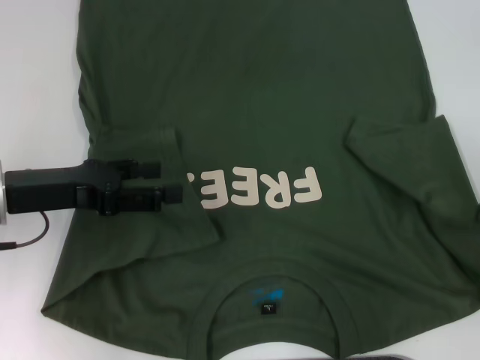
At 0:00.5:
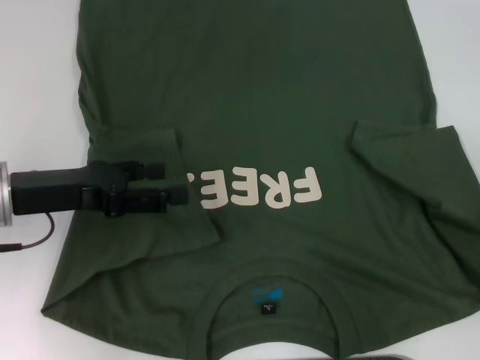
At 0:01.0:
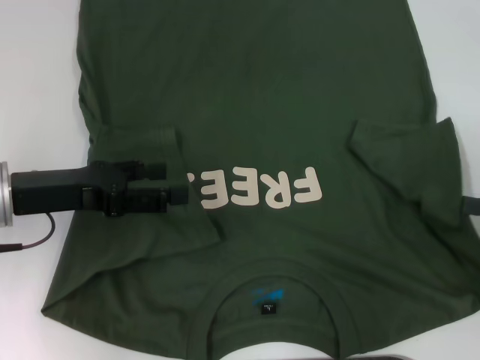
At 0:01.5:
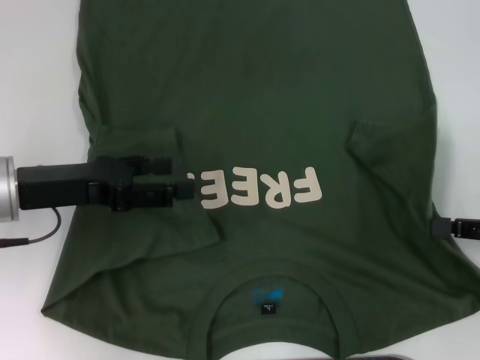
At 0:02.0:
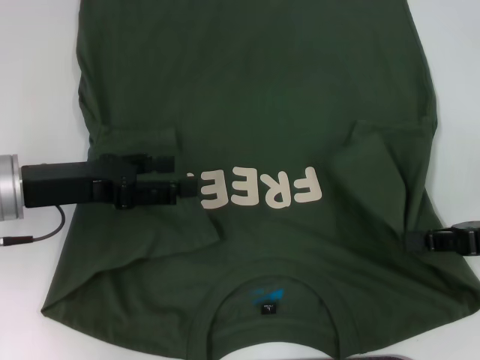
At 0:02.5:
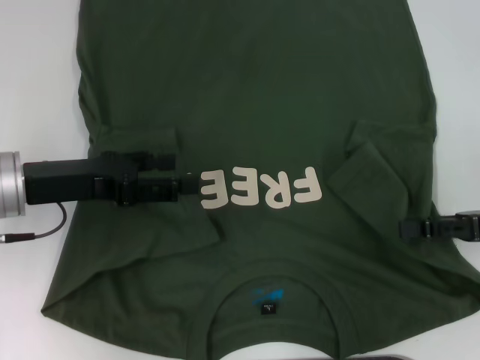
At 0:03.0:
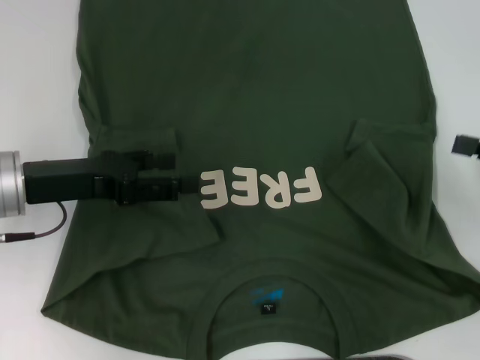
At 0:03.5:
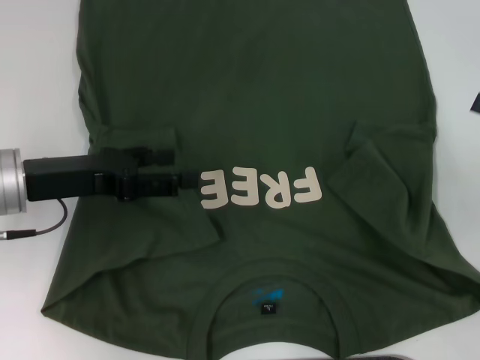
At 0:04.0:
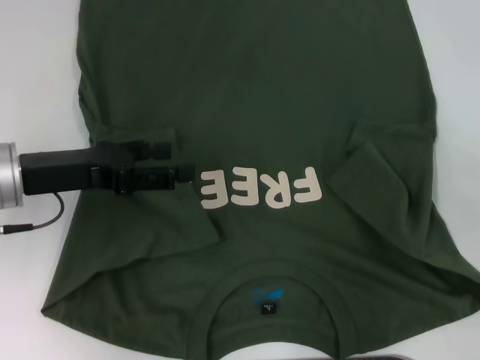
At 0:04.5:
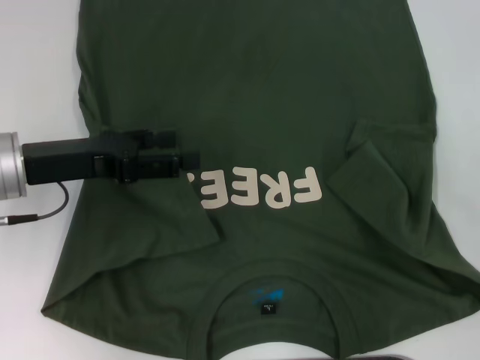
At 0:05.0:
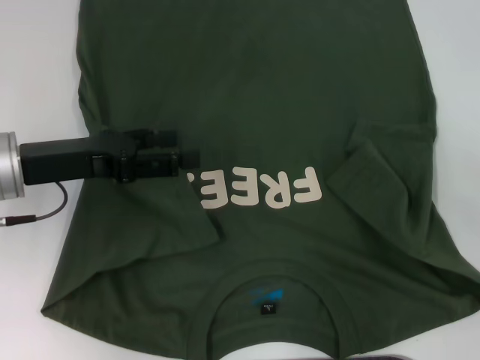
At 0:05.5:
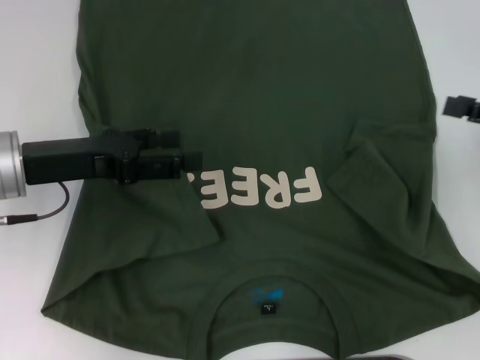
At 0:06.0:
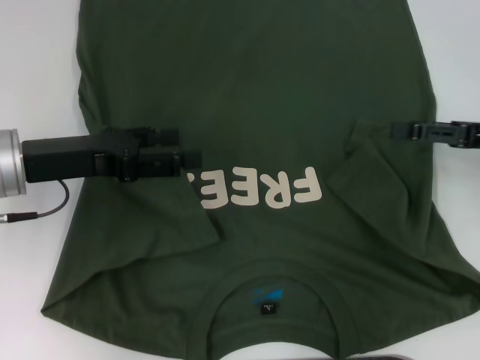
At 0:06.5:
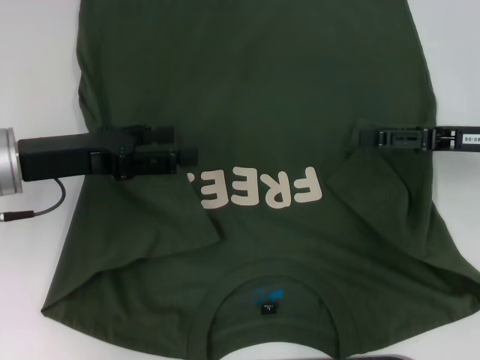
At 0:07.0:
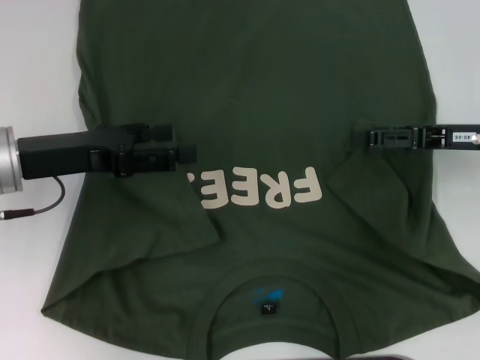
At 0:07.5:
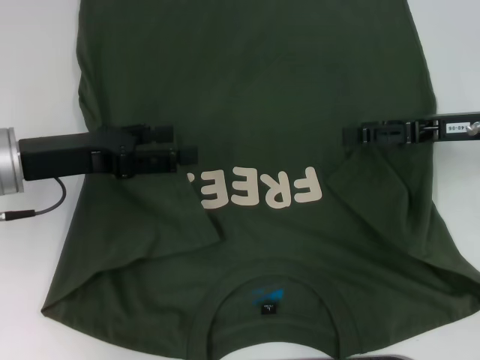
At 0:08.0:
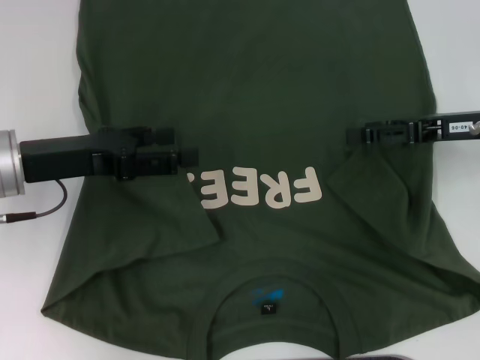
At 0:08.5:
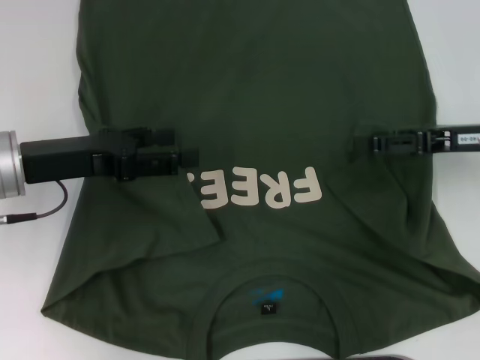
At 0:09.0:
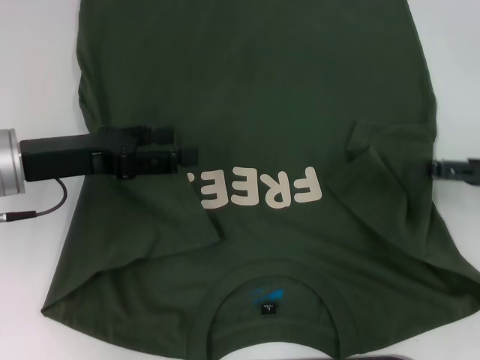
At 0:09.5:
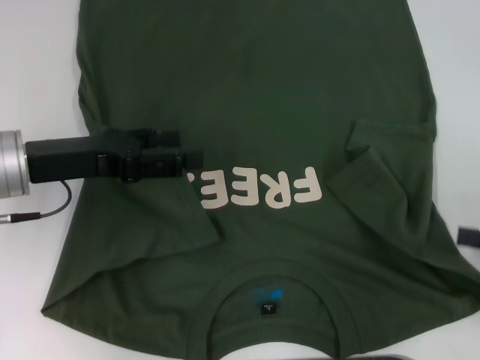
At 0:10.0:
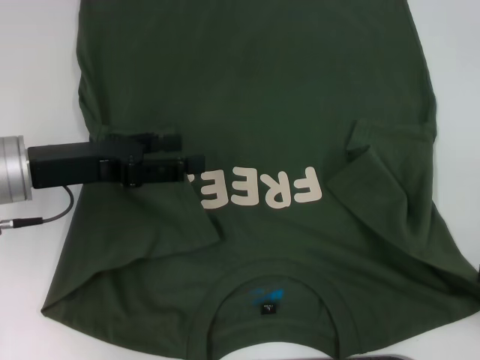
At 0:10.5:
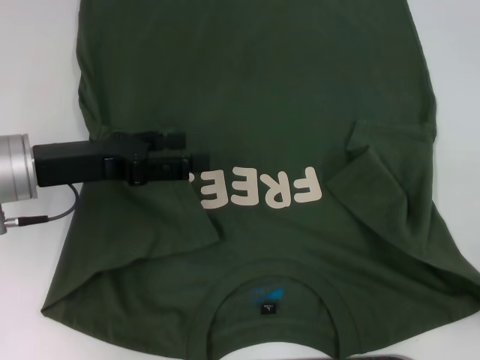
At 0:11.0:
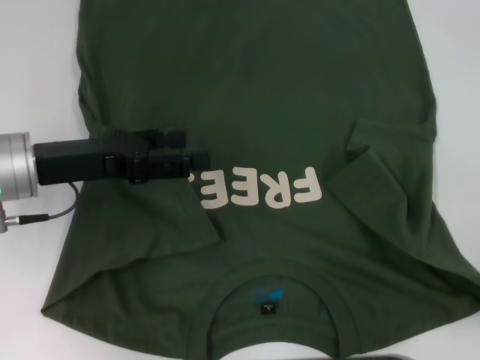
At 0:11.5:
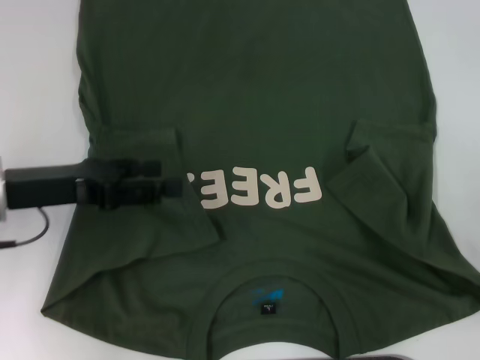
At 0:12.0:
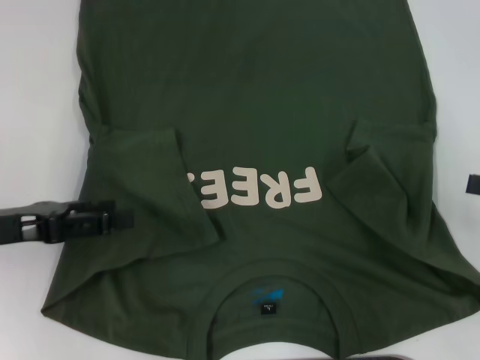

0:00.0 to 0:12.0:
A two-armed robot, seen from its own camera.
Step, 0:00.0 to 0:02.5: Fold the bottom right sleeve with your right hand.
0:00.0 to 0:02.0: The right gripper shifts approximately 5 cm to the left.
0:02.0 to 0:04.0: The right gripper moves roughly 5 cm, and opens its fingers.
0:04.0 to 0:06.0: The right gripper moves forward, approximately 5 cm.
0:06.0 to 0:08.0: The right gripper moves roughly 5 cm.
0:08.0 to 0:10.0: The right gripper shifts some 20 cm backward and to the right.
0:10.0 to 0:12.0: The left gripper travels to the left by some 5 cm, while the right gripper moves forward, roughly 5 cm.

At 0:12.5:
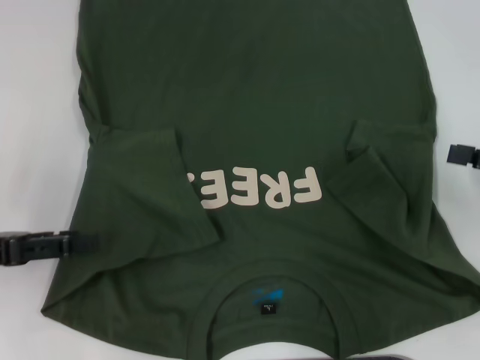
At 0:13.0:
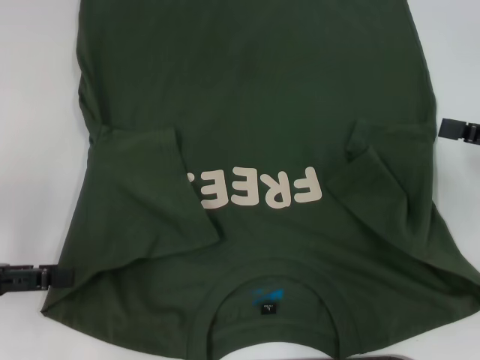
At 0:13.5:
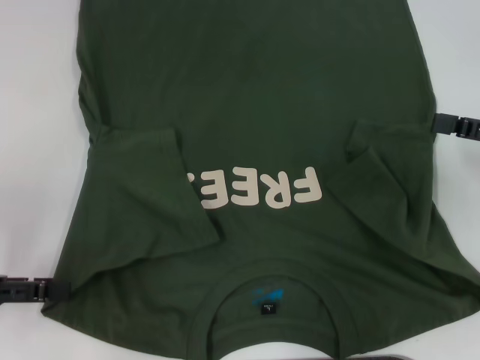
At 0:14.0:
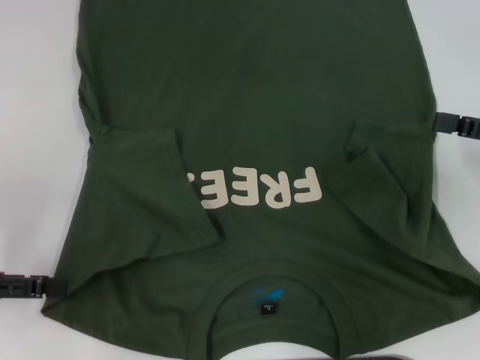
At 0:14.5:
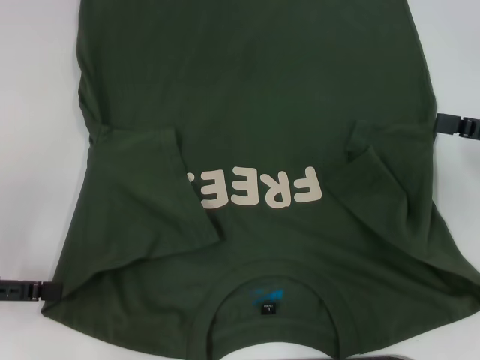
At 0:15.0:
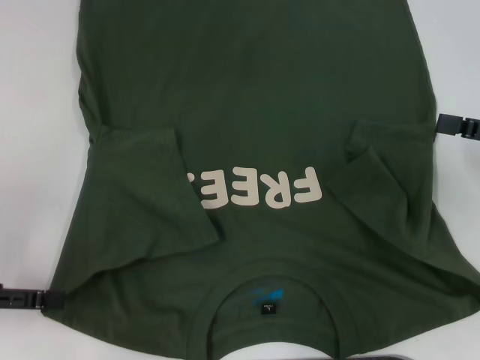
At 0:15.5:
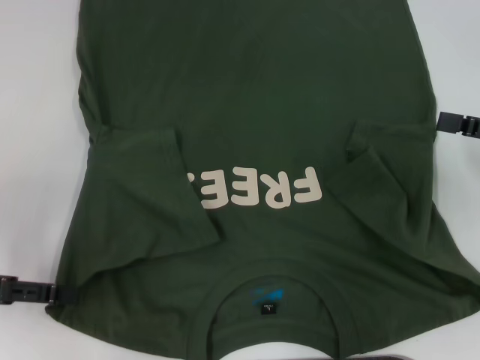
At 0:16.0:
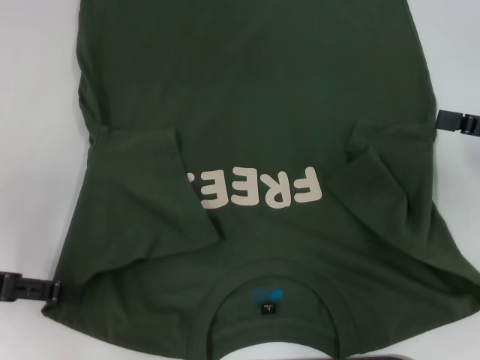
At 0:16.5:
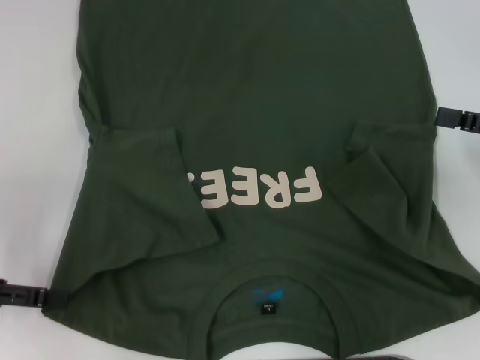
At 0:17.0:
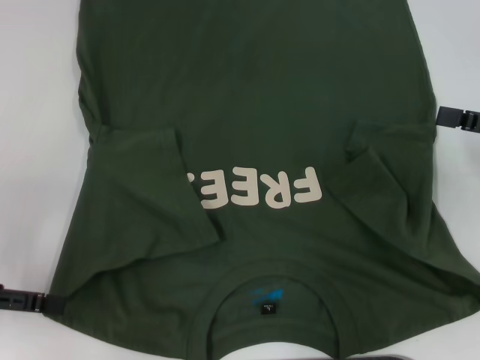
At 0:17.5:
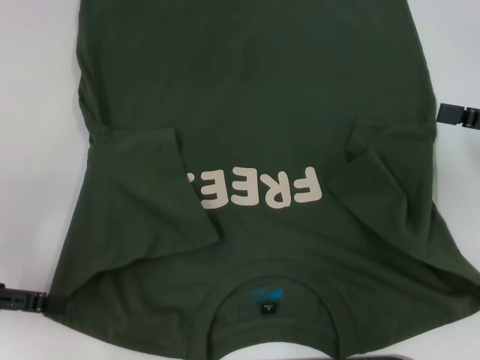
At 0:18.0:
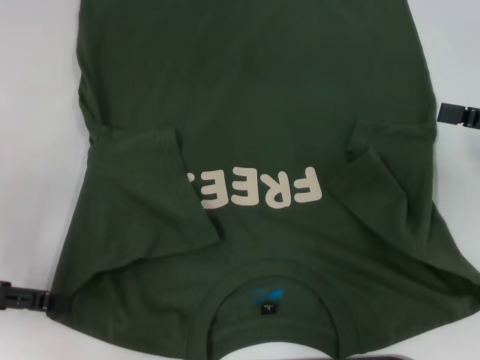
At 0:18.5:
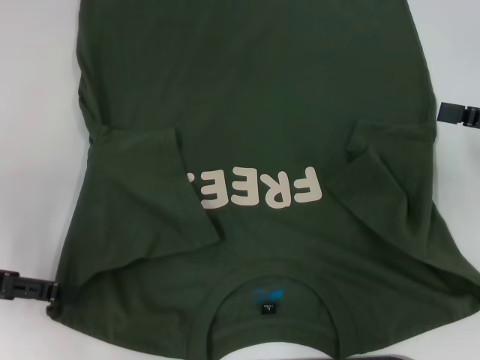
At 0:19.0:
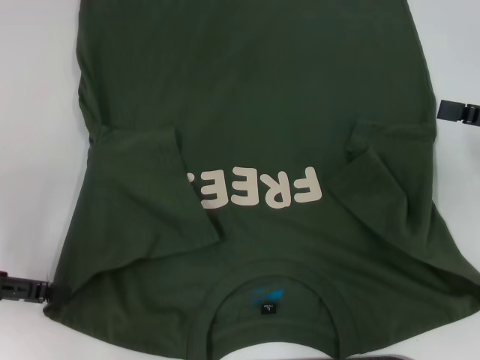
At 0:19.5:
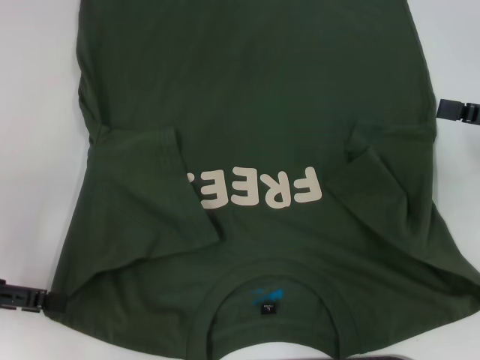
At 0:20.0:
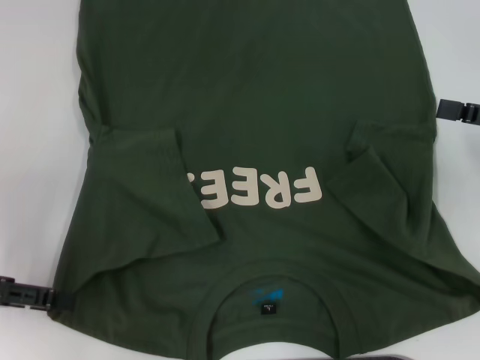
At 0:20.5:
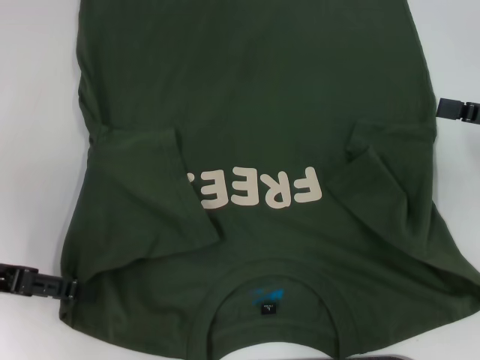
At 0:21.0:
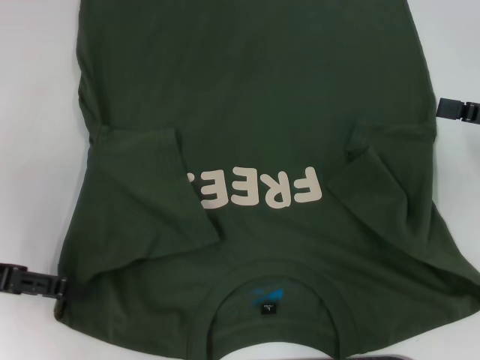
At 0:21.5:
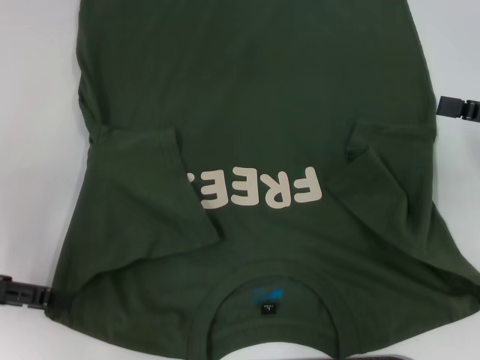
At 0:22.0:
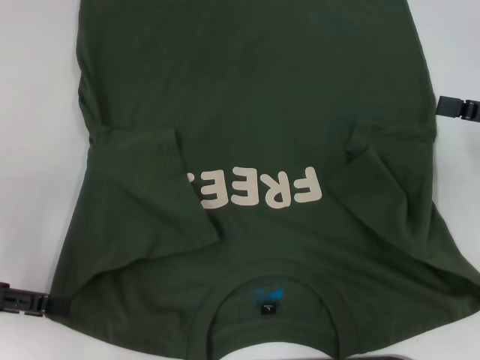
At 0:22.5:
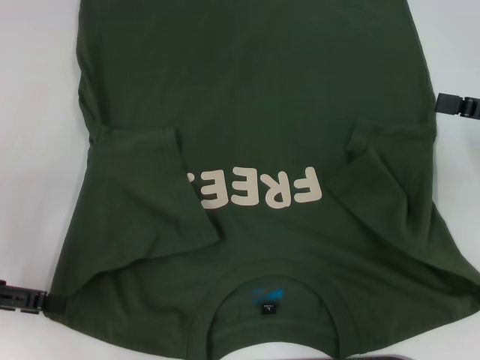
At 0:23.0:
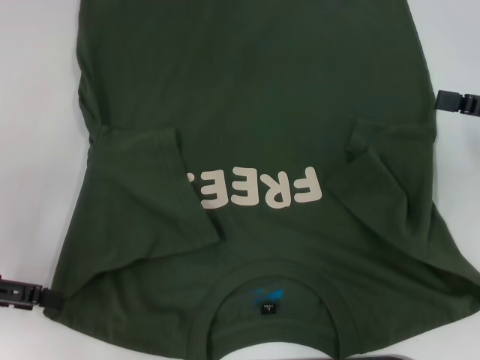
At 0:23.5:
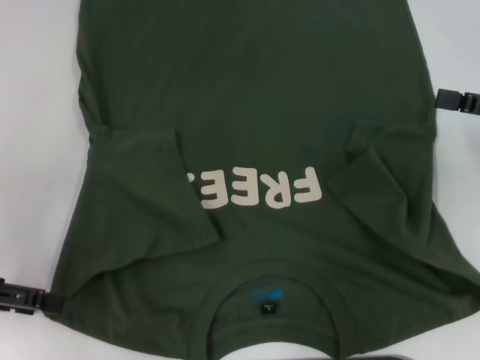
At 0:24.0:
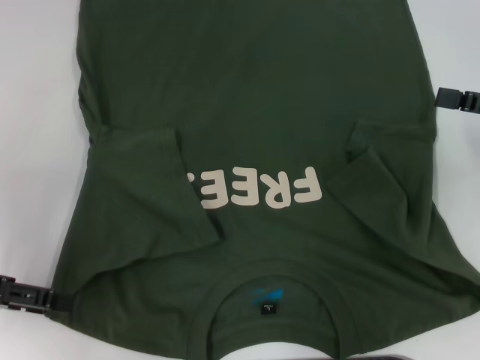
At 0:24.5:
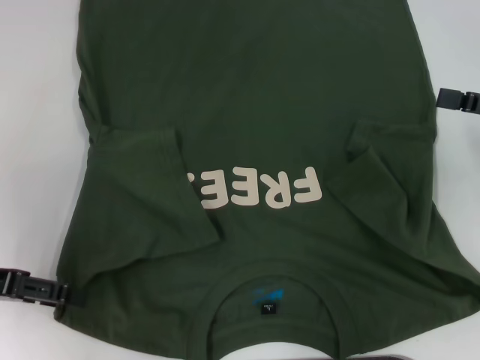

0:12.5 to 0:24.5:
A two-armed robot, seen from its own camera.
0:12.5 to 0:14.5: The grippers stay close to where they were, moving slightly.
0:16.5 to 0:24.5: The grippers make only small movements.

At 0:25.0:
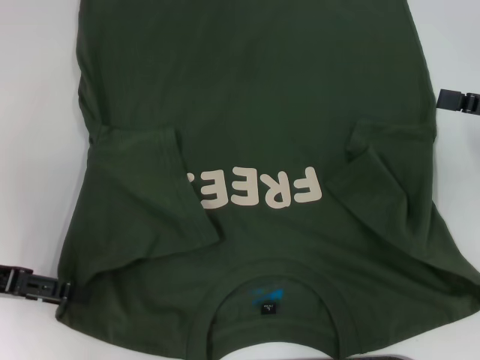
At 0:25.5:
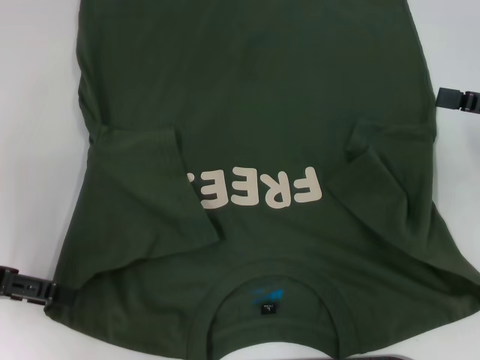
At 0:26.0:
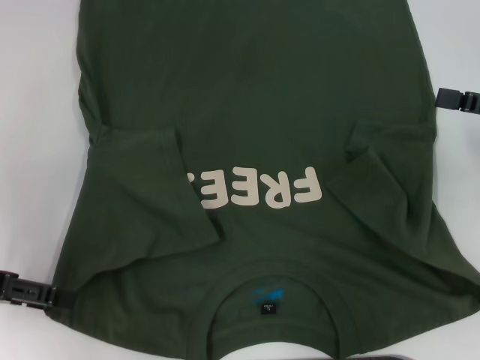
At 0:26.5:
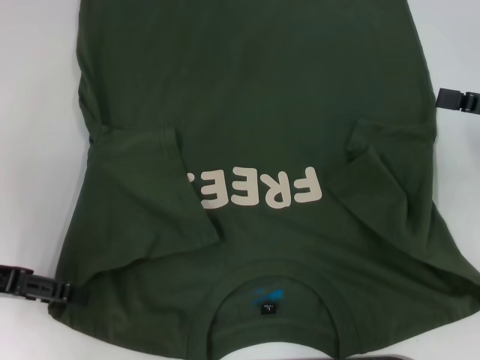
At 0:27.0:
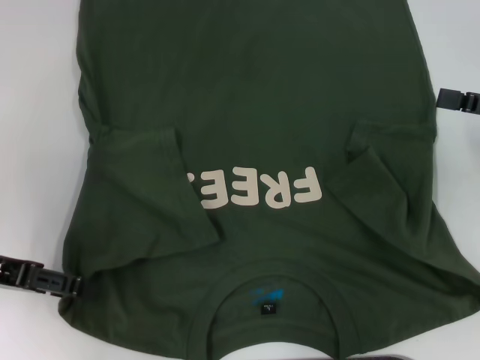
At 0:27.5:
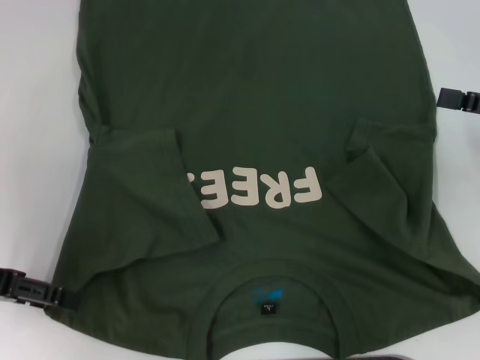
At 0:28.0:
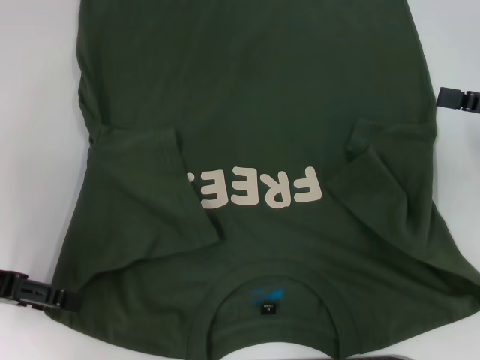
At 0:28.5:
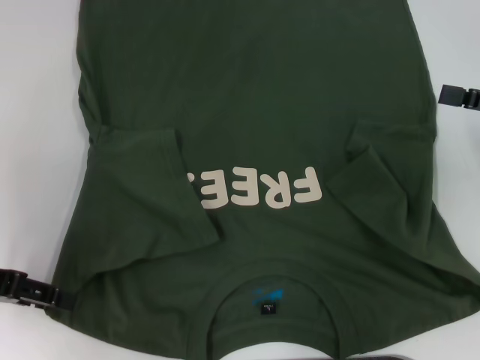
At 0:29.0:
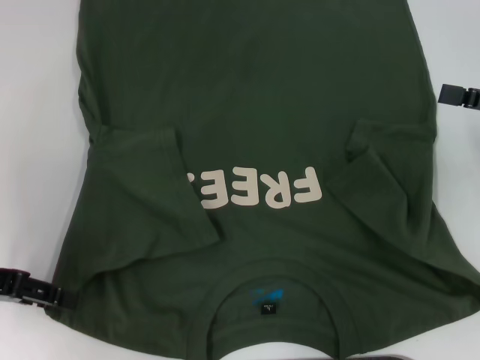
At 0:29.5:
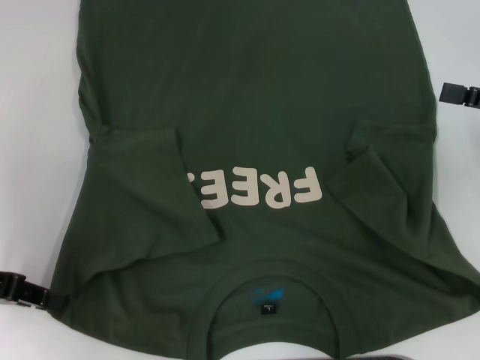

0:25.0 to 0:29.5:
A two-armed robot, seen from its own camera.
0:25.0 to 0:27.0: There are only small adjustments of the grippers.
0:27.0 to 0:29.5: The left gripper closes.
